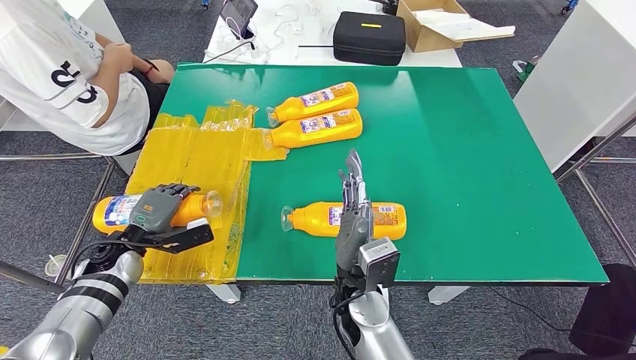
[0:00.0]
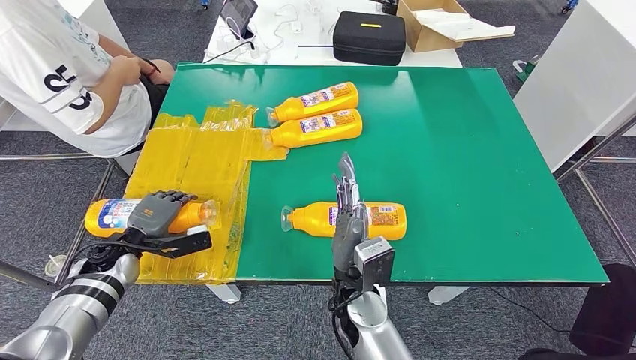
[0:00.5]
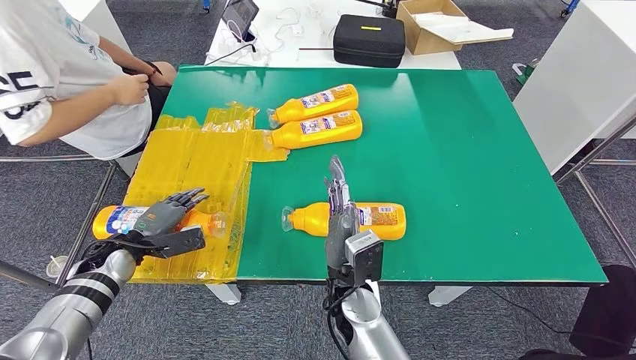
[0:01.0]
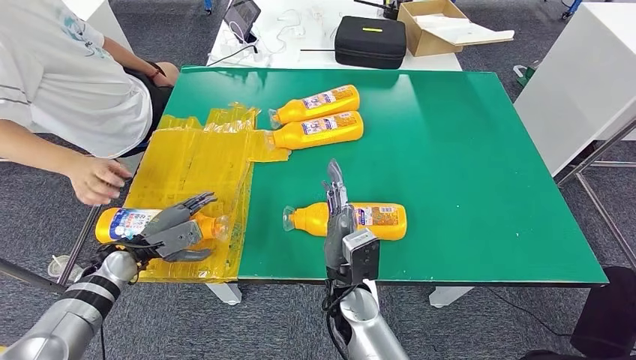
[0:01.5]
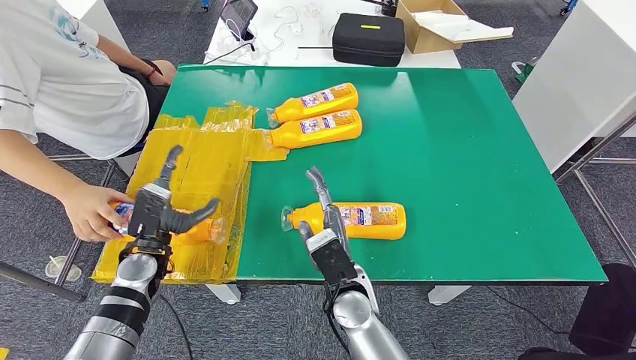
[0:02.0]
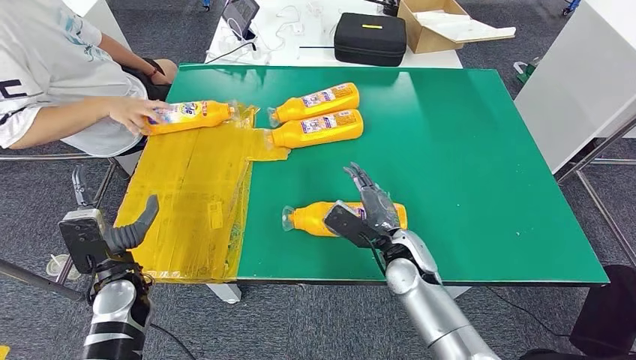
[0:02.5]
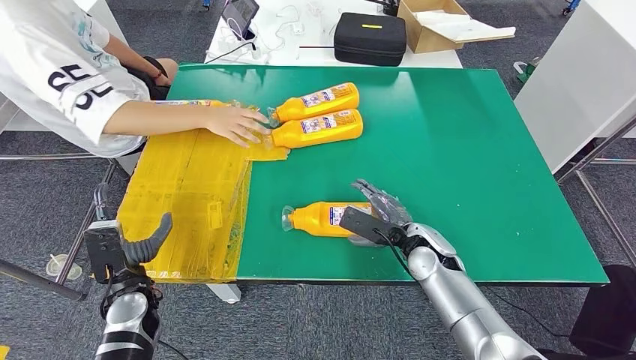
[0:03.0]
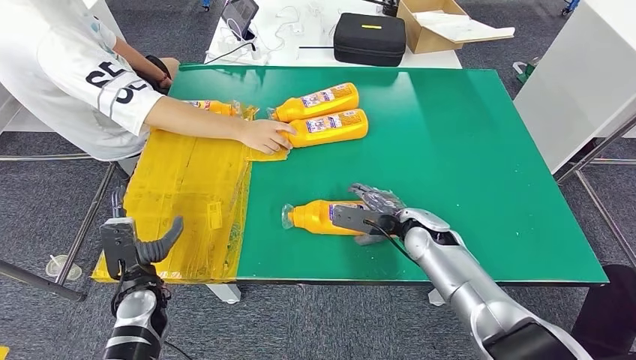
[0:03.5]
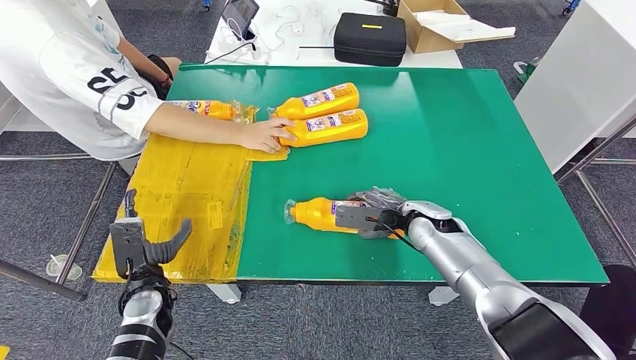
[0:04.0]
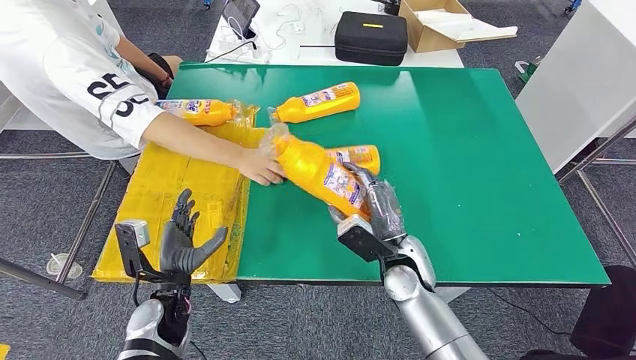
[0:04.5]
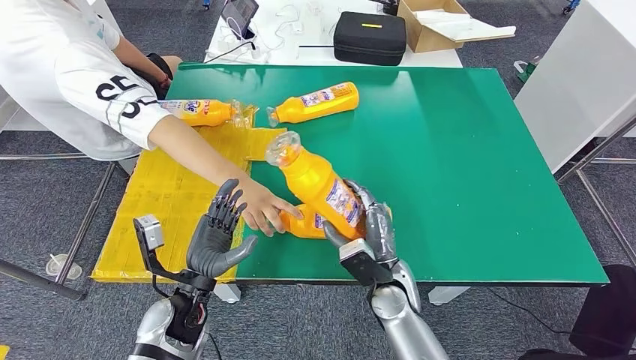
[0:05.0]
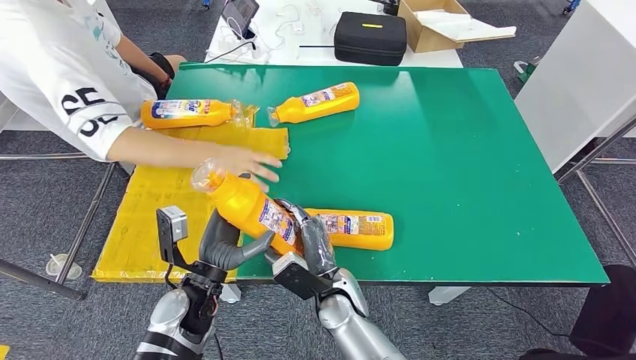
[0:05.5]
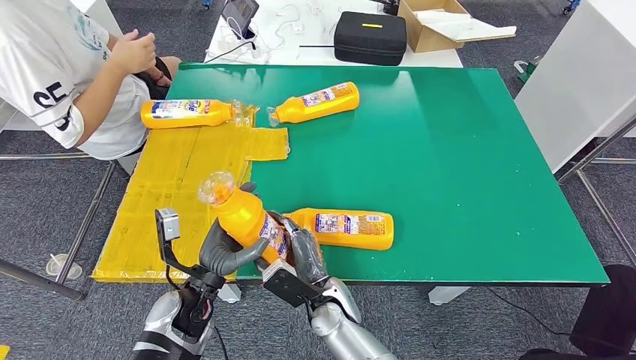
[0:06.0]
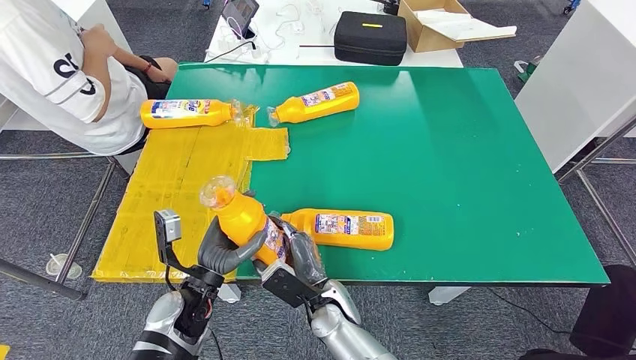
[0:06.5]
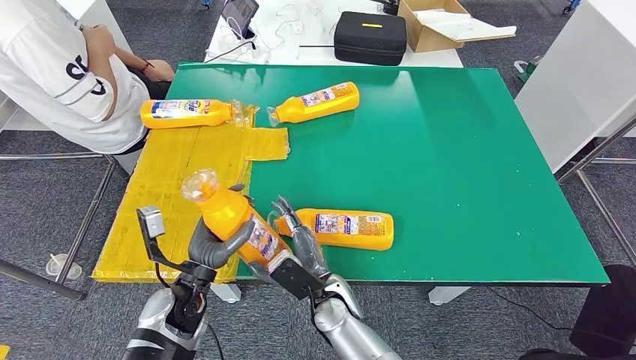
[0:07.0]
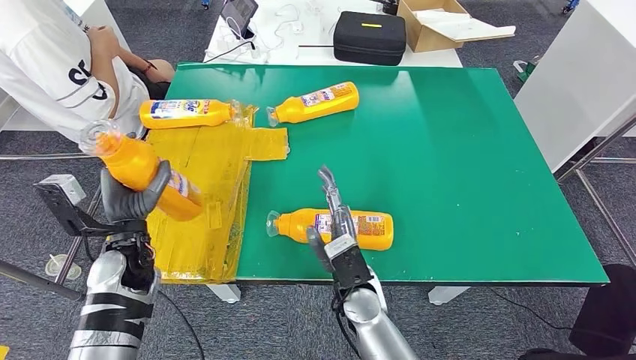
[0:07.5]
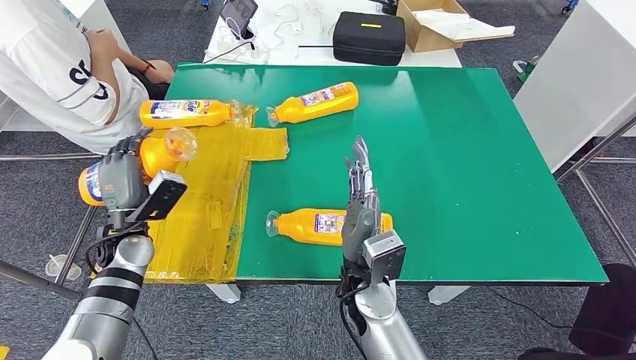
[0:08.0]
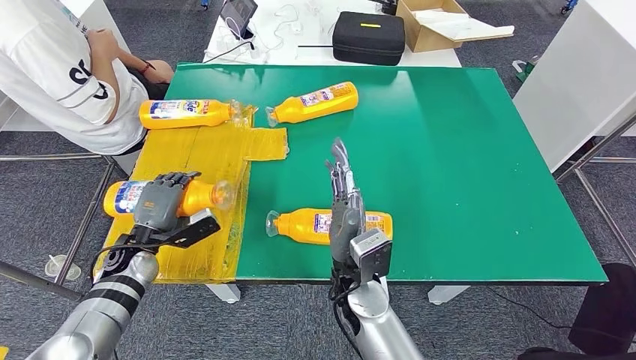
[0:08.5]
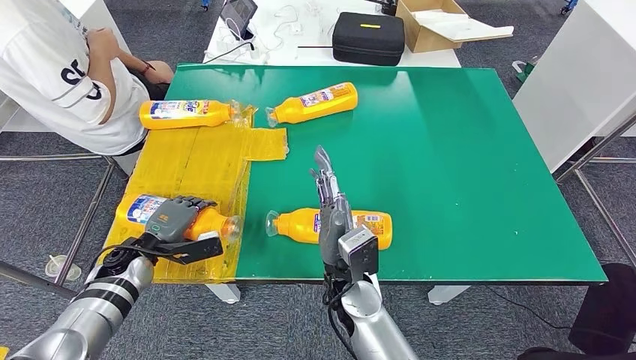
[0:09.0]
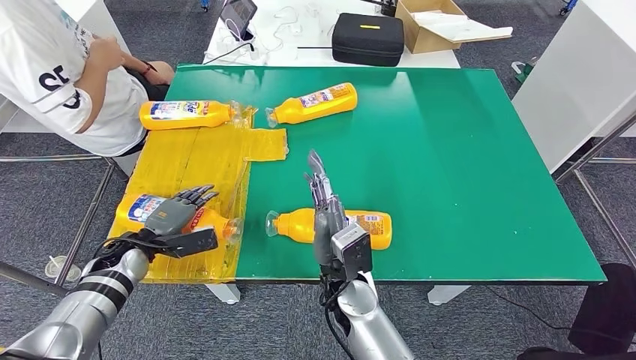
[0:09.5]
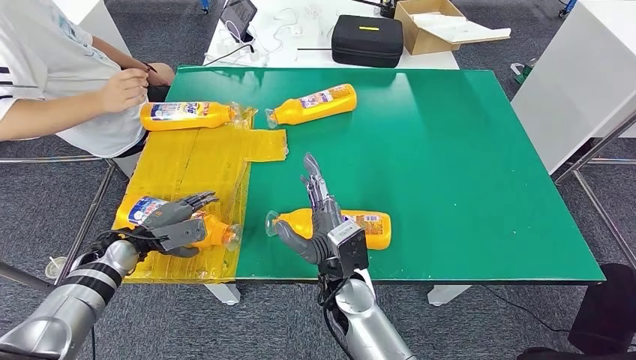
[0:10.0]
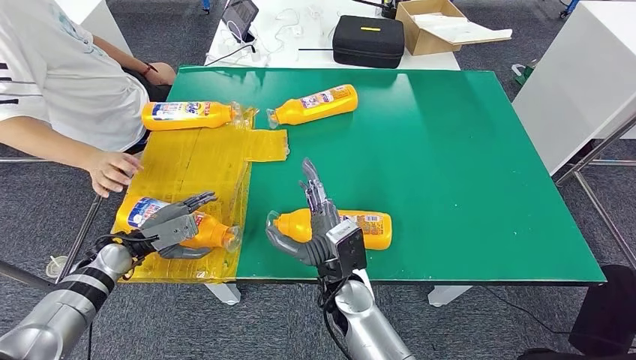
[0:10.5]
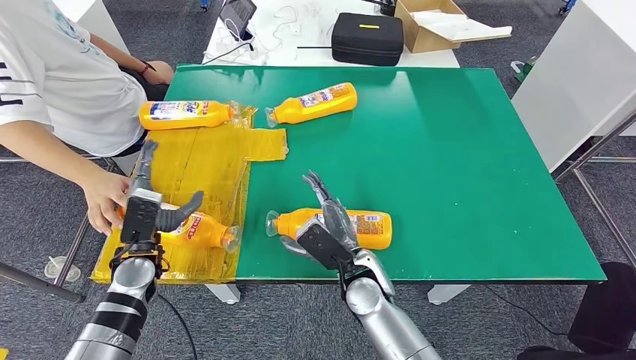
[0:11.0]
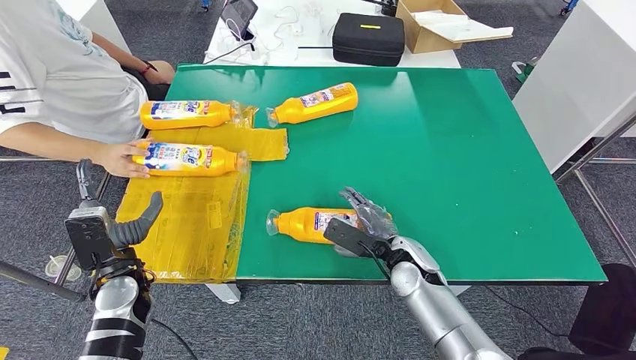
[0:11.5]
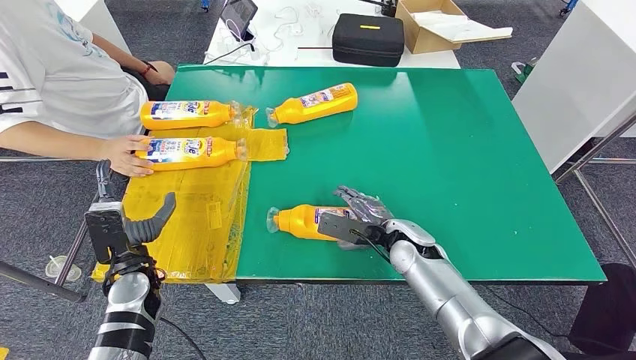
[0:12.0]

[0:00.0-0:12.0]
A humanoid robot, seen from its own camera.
Step, 0:04.0 to 0:06.5: Pick up the fast-moving consumer goods bottle from the table.
Step, 0:07.0 to 0:10.5: Flip the fast-moving consumer goods bottle to the front side.

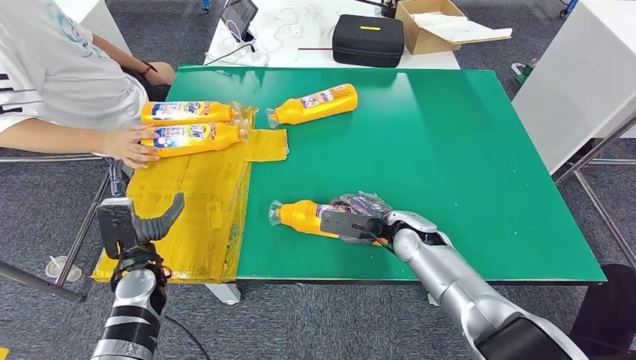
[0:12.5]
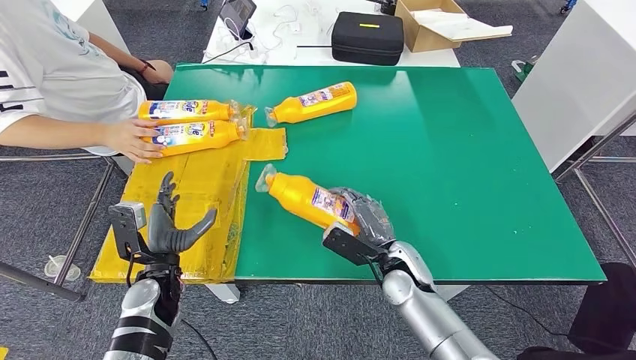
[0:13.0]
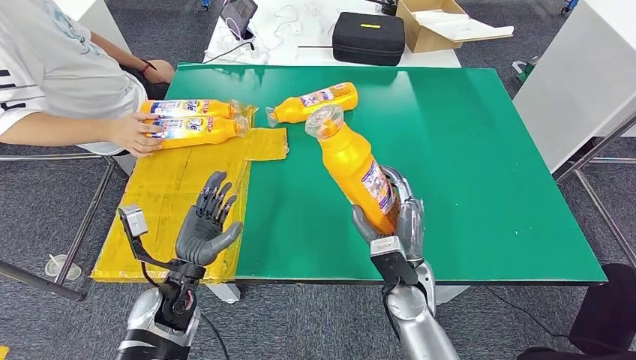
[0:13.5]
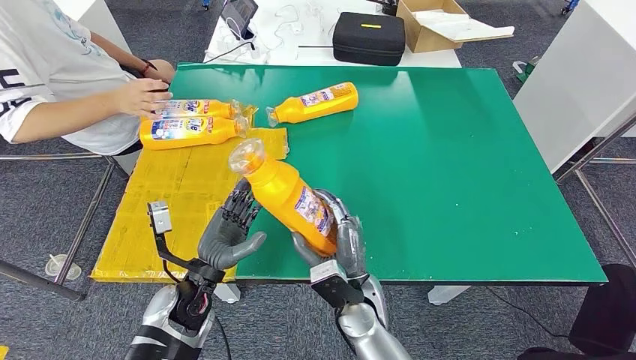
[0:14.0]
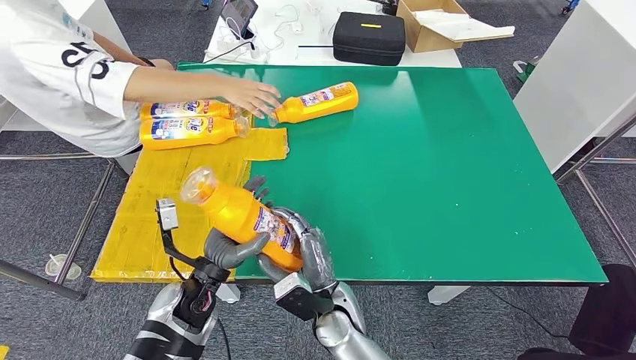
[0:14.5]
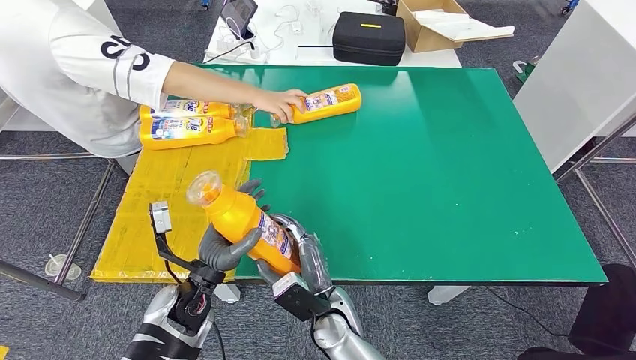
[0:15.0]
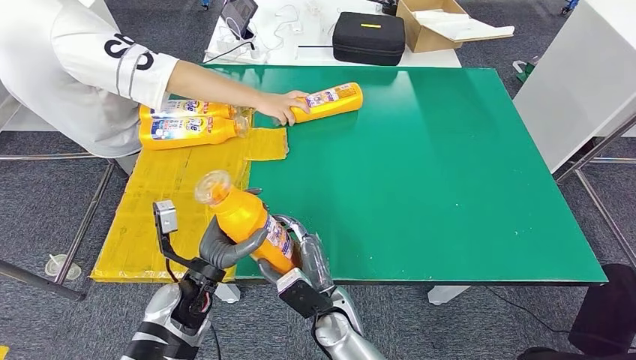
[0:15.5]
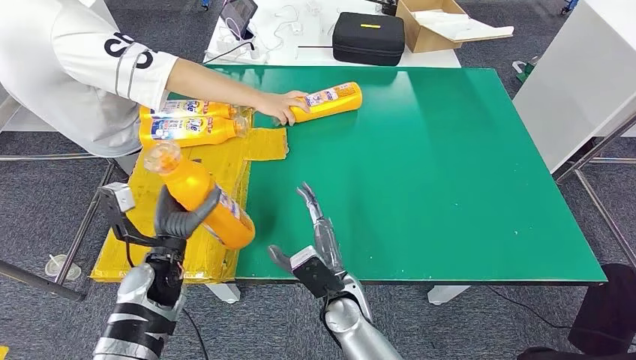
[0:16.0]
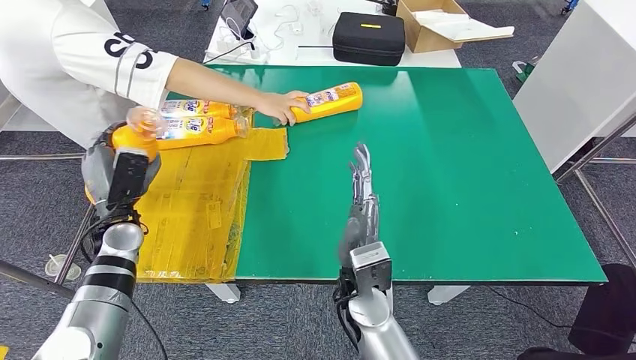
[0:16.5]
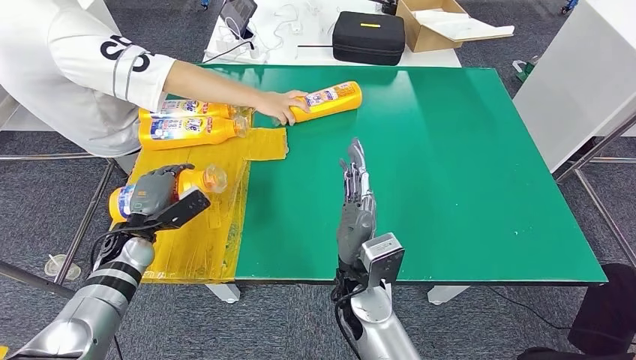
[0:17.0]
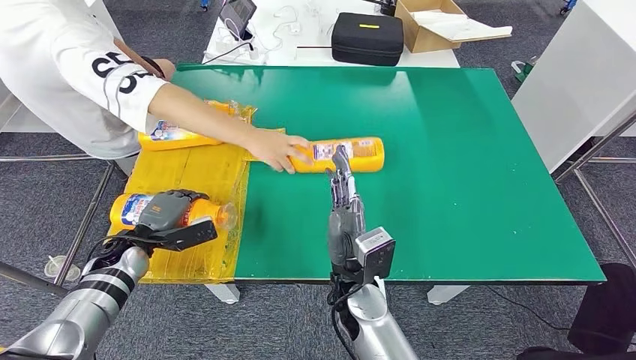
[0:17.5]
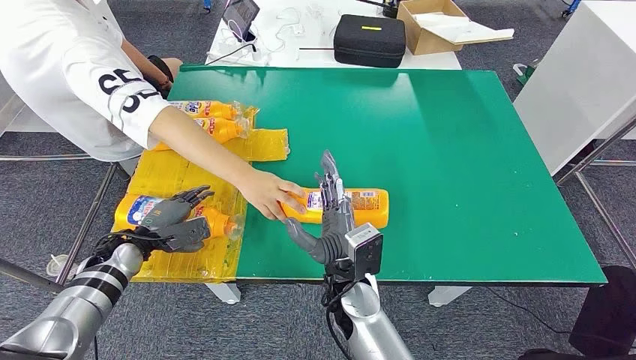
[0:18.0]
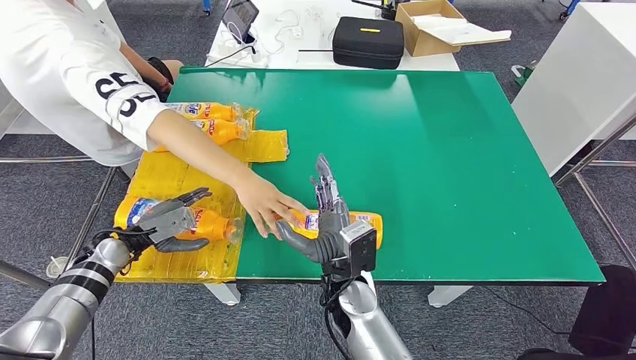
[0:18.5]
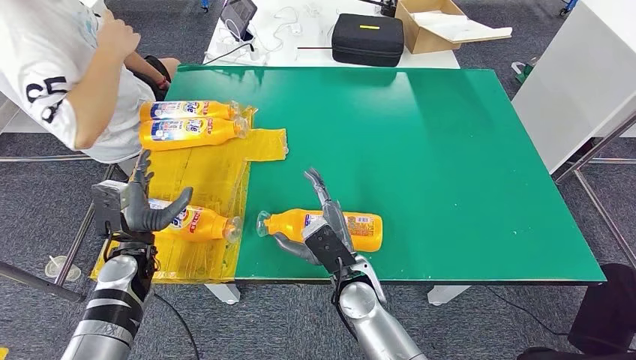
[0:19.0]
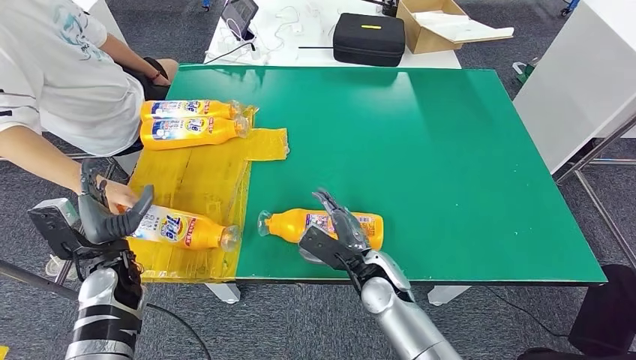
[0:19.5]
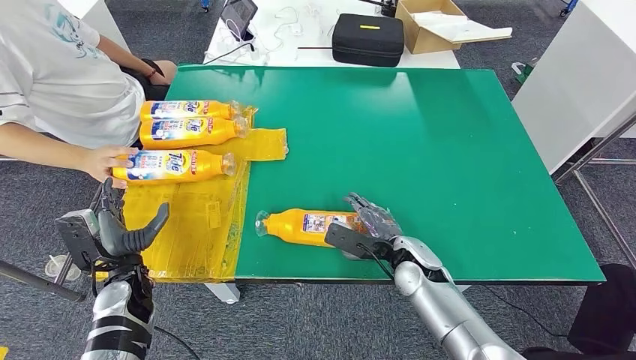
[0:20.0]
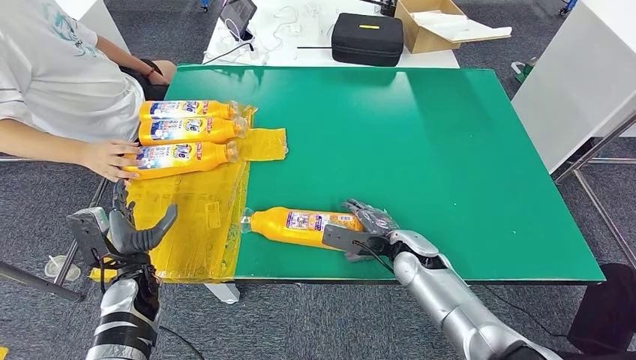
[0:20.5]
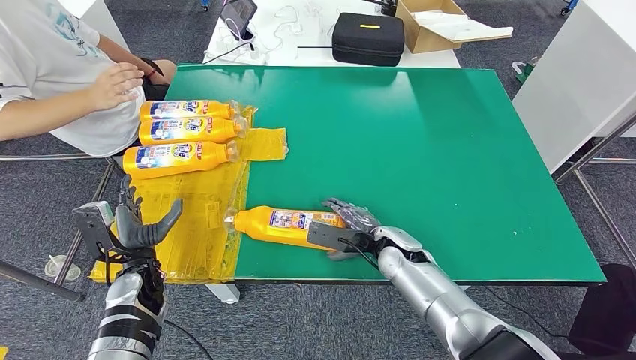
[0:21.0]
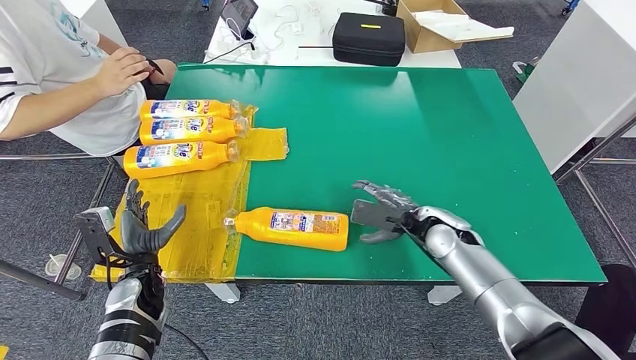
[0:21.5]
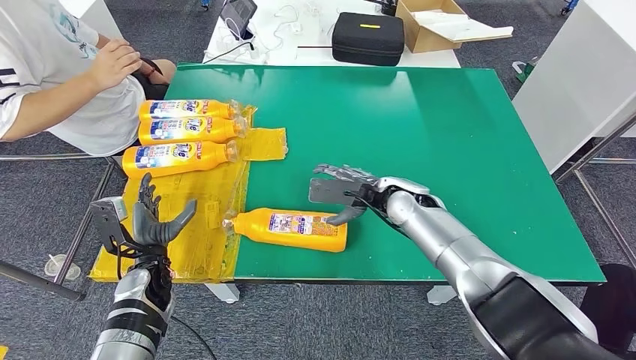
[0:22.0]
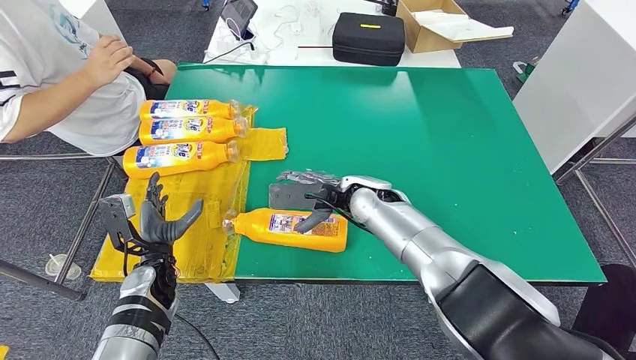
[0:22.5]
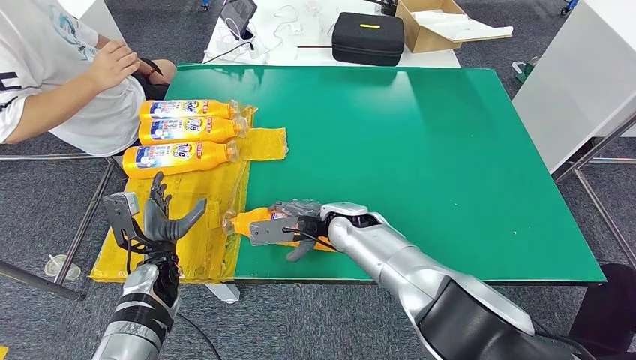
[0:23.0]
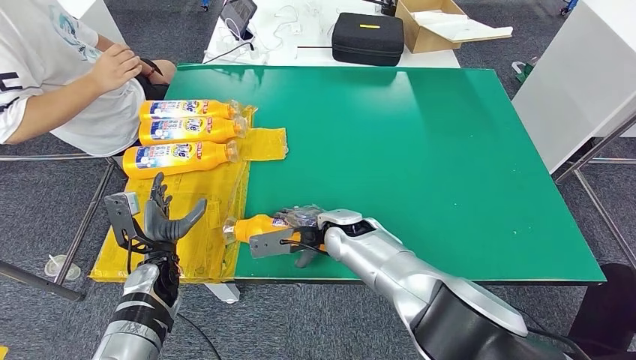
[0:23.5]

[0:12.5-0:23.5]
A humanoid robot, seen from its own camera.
Step, 0:13.0 to 0:15.0: Pick up the fast-moving consumer goods bottle from the table.
Step, 0:15.5 to 0:18.0: Flip the fast-moving consumer goods bottle to the front side.
0:14.5 to 0:16.0: The left hand heads to the left, covering some 5 cm.
0:21.5 to 0:23.5: The right hand heads to the left, covering roughly 20 cm.
